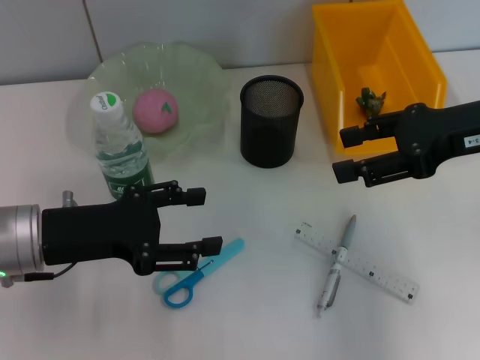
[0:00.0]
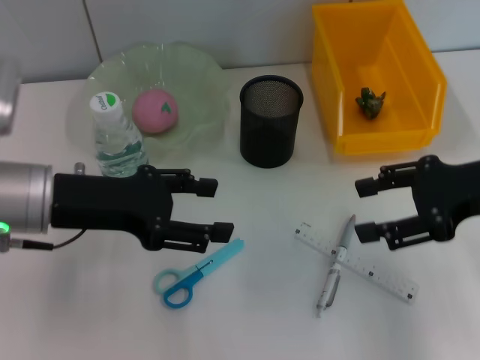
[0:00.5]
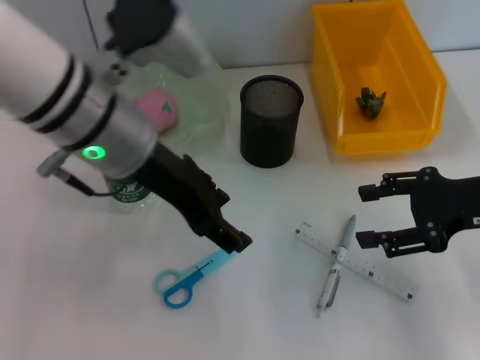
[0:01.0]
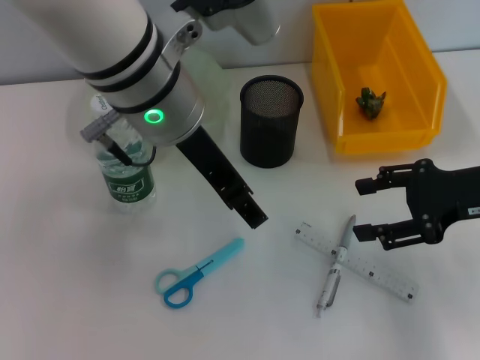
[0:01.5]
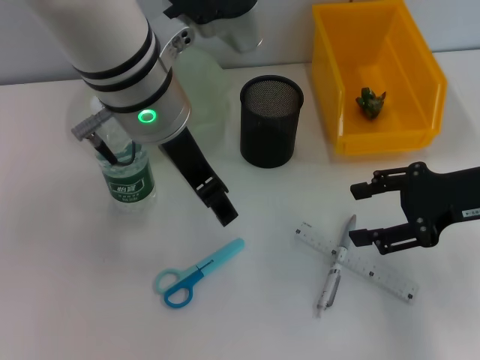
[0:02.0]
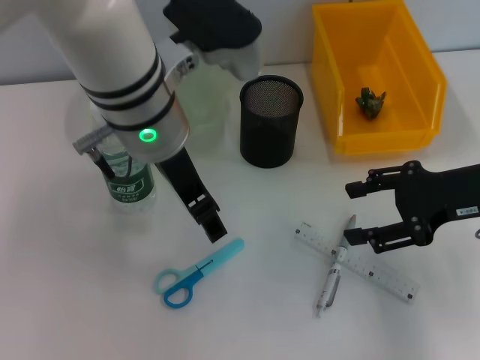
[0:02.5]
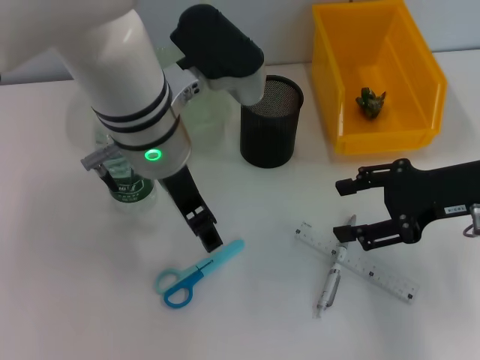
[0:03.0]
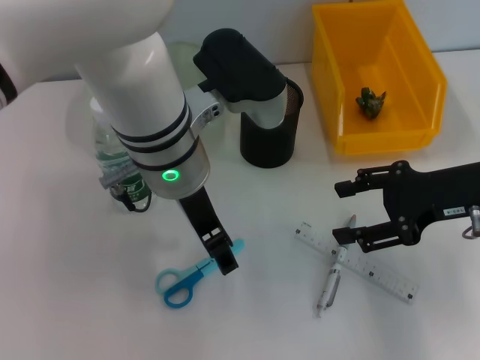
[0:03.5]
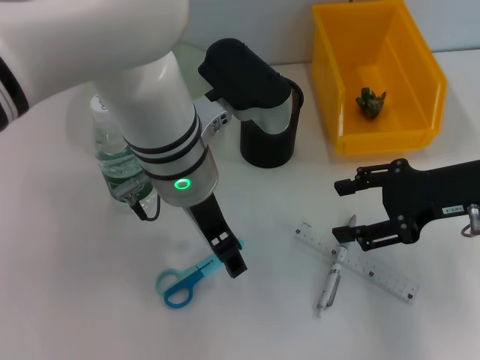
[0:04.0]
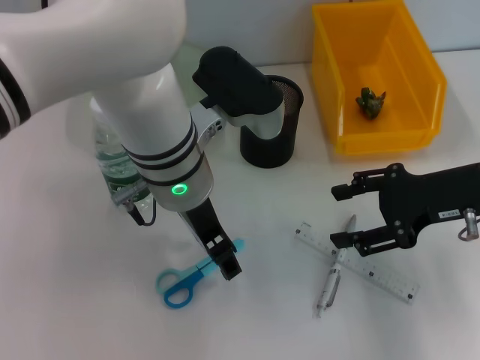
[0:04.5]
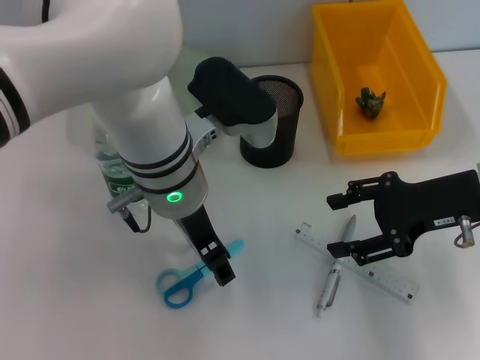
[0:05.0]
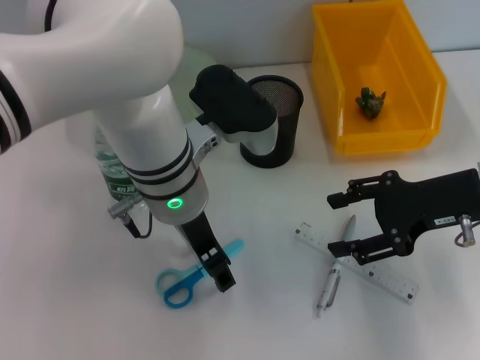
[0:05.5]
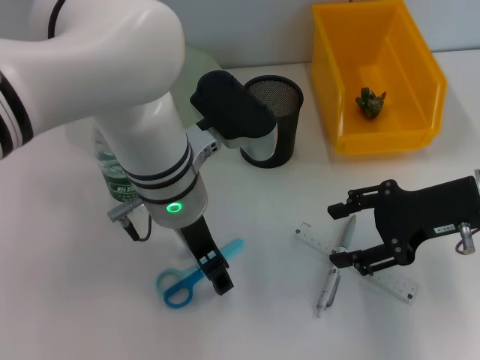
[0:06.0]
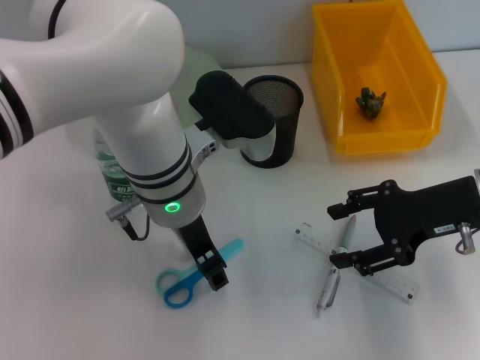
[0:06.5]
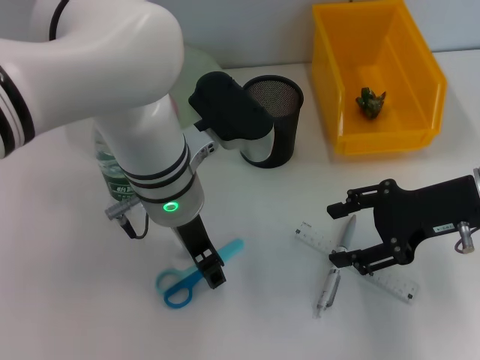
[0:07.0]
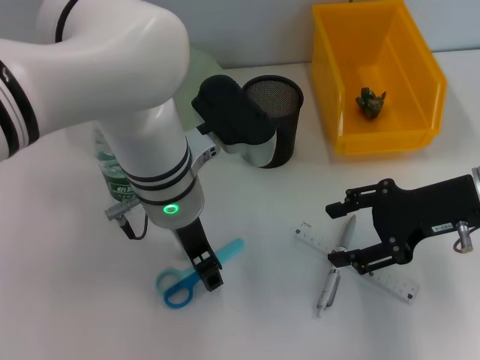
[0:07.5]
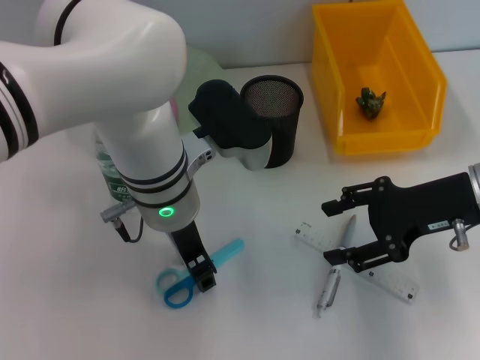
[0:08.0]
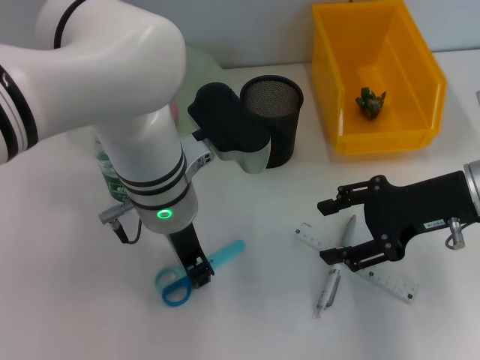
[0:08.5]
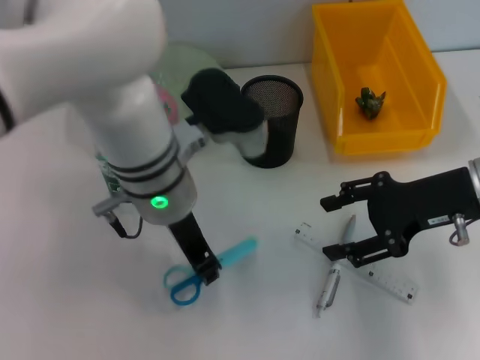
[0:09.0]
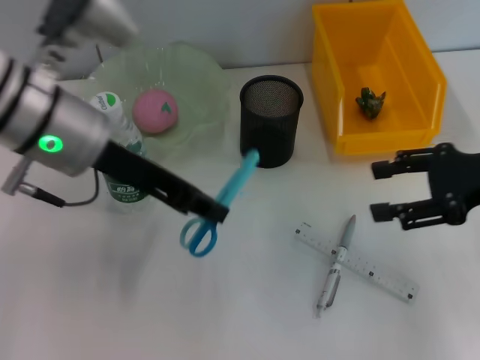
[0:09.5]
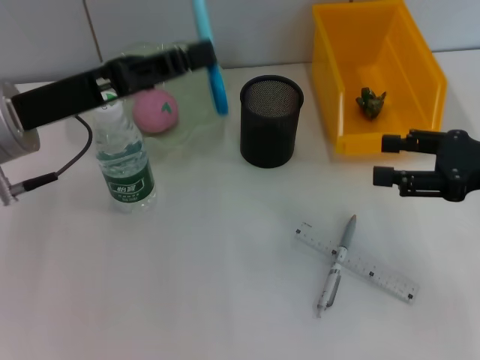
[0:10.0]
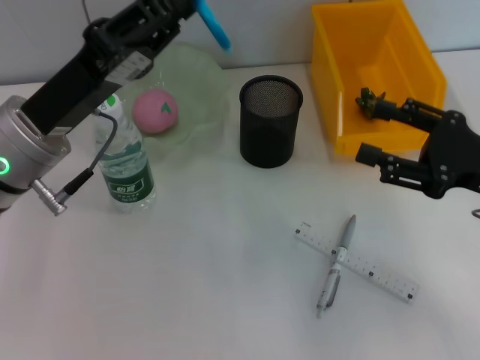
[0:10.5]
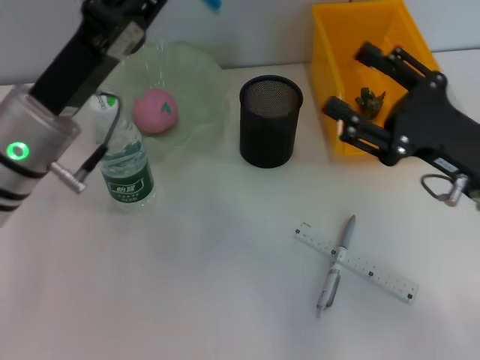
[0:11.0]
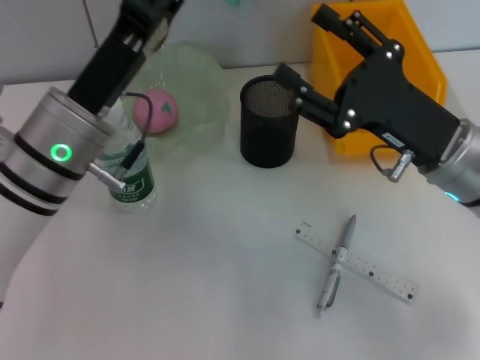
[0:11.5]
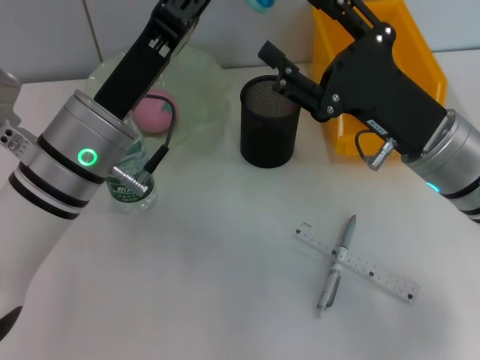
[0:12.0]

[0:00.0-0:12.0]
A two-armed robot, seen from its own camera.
Step, 0:00.0 to 0:08.5: Grab the blue scissors with the left hand.
0:00.0 to 0:02.0: The right gripper shifts approximately 5 cm downward, while the left gripper heads to the right, upward and forward, covering roughly 20 cm.
0:02.0 to 0:04.0: The left gripper travels downward by roughly 5 cm.
0:06.0 to 0:08.0: The left gripper closes.
0:08.0 to 0:10.0: The left gripper moves to the left, about 15 cm, and closes its fingers; the right gripper shifts approximately 5 cm to the right.
0:10.0 to 0:12.0: The left gripper travels to the right by roughly 10 cm. Meanwhile the right gripper heads to the left, covering approximately 15 cm.

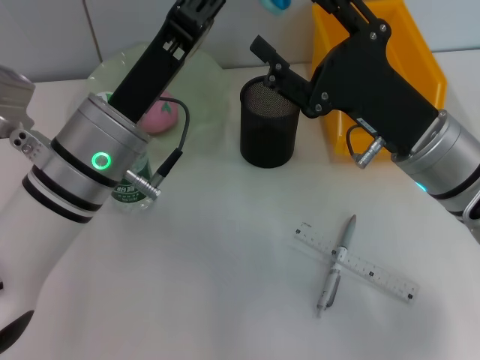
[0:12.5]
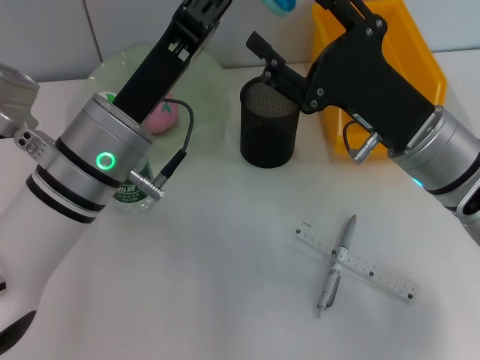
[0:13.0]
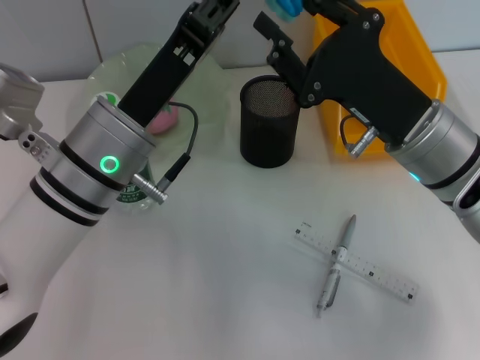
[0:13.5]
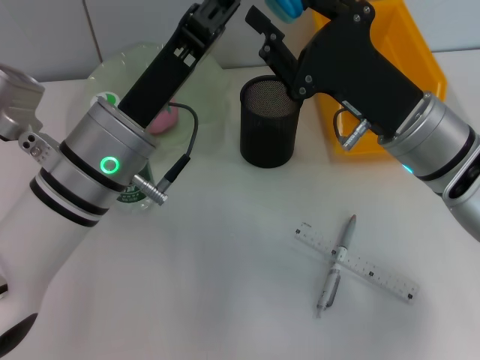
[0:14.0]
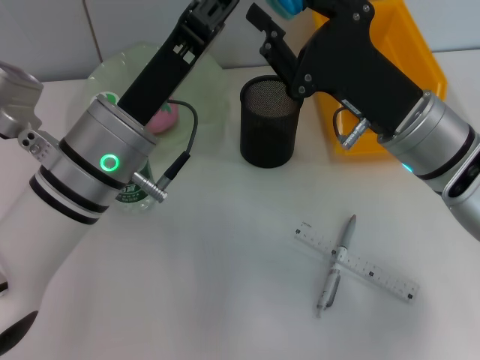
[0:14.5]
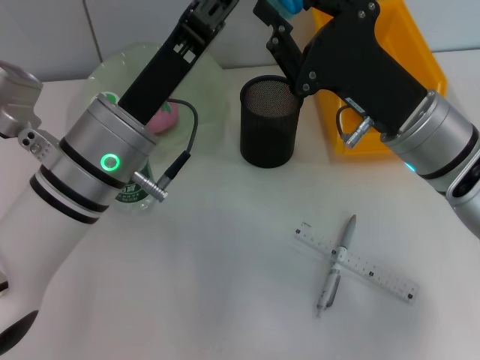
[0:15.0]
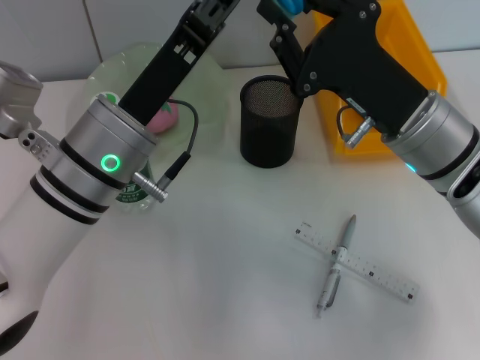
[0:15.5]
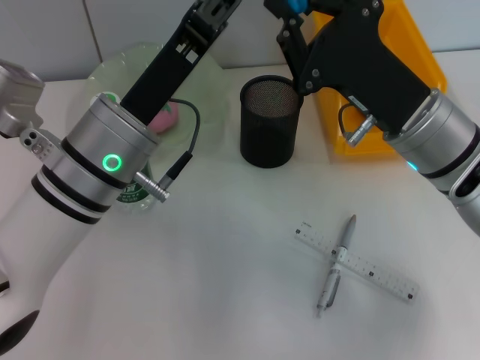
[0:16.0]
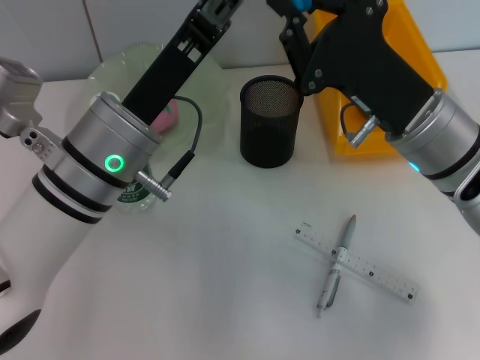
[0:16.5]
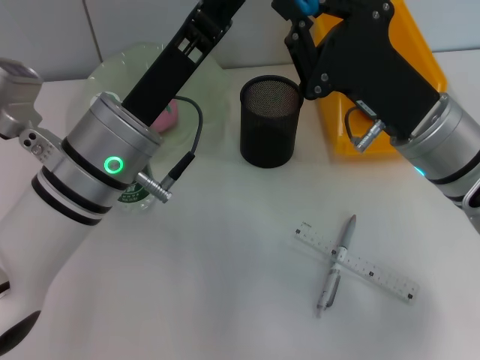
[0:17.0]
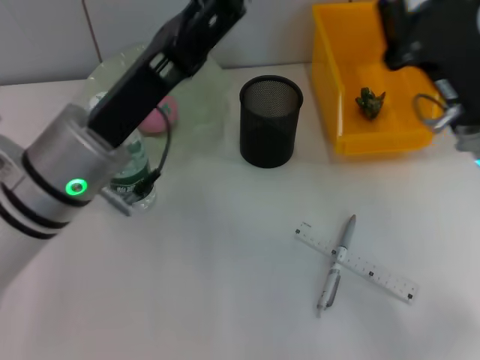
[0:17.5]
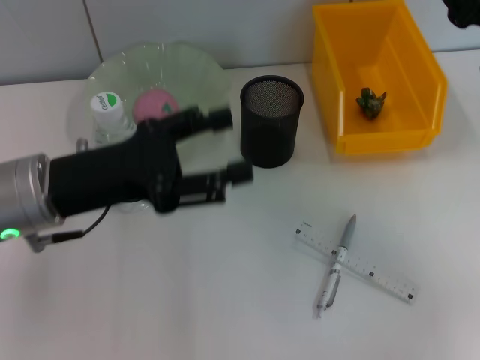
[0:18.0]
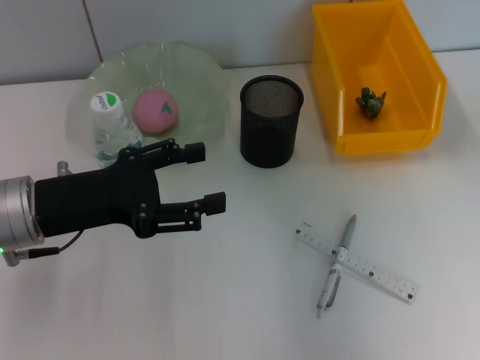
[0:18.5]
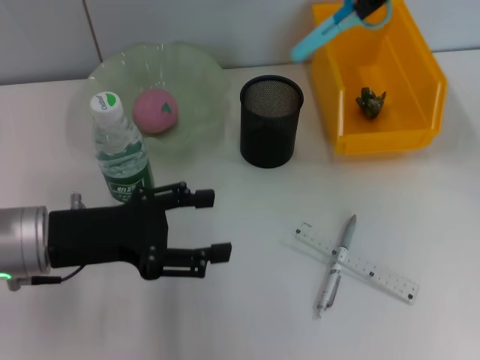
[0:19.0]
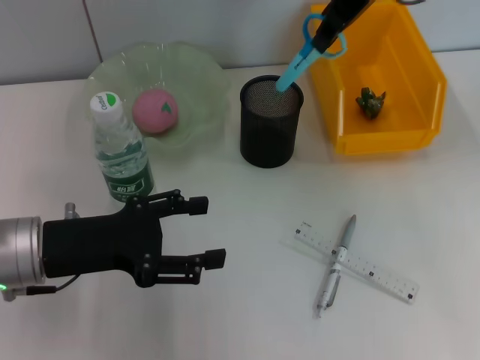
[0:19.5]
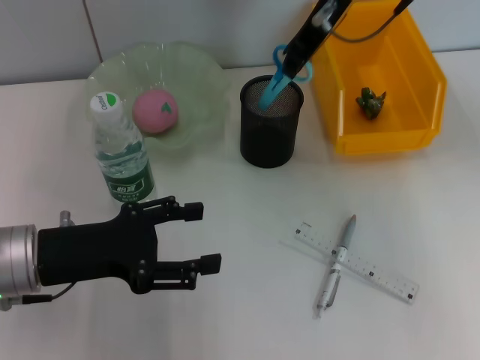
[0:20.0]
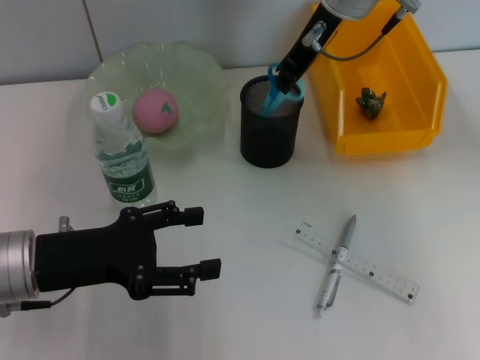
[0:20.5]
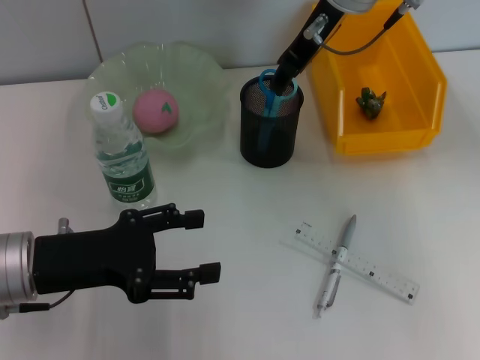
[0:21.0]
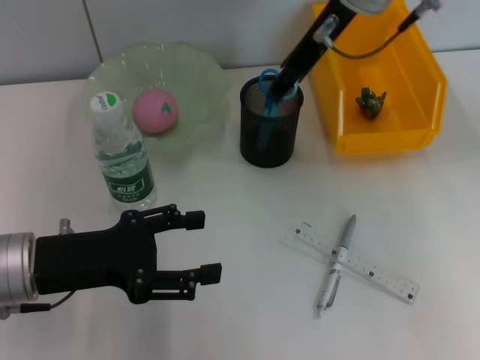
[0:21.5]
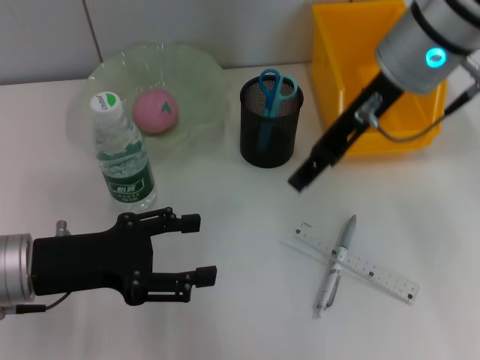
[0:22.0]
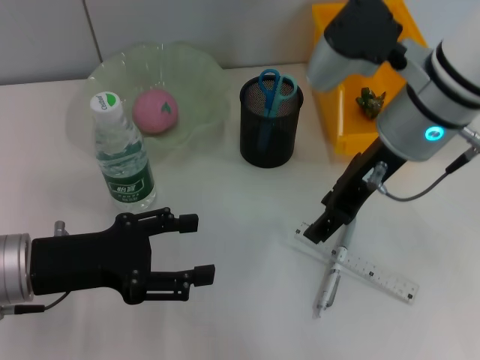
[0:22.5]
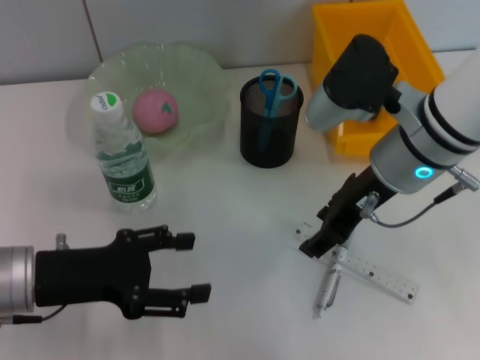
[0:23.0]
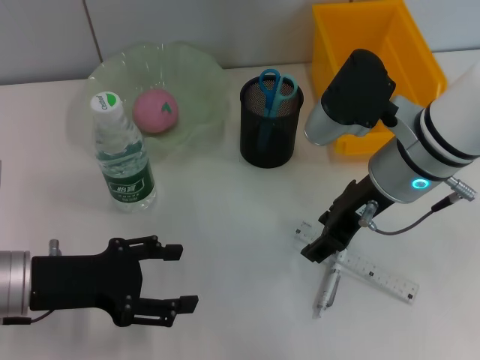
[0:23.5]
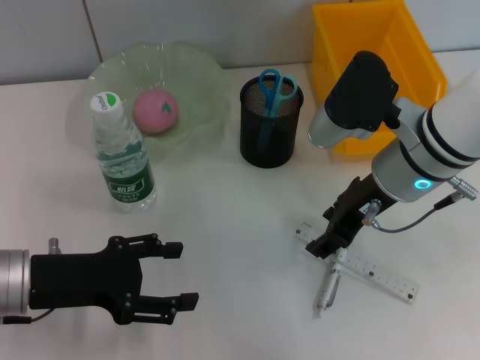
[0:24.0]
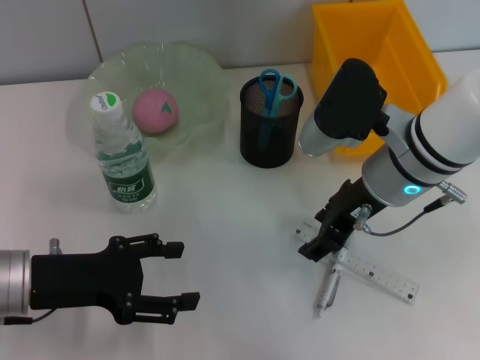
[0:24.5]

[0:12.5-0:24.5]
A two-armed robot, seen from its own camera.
Step, 0:12.5 to 0:17.0: Pass the blue scissors from the left hand to the right hand.
Step, 0:17.5 to 0:21.0: Place the blue scissors into the pen holder with the right hand.
0:12.5 to 0:14.5: The right gripper closes up.
0:14.5 to 0:16.5: The two grippers keep their place.
0:16.5 to 0:18.5: The left gripper shifts approximately 10 cm to the left, and opens its fingers, while the right gripper heads upward and to the right, covering some 20 cm.
0:18.5 to 0:20.5: The right gripper shifts roughly 20 cm to the left.
0:20.5 to 0:22.5: The right gripper travels backward and downward by approximately 10 cm, and opens.
0:22.5 to 0:24.5: The right gripper heads downward, covering some 5 cm.

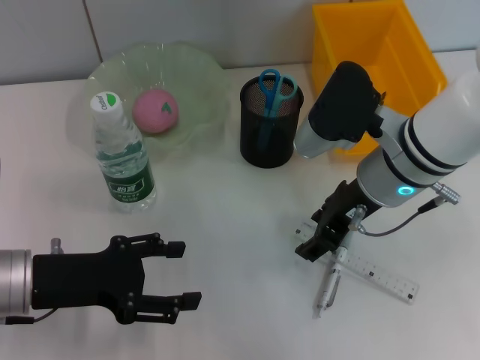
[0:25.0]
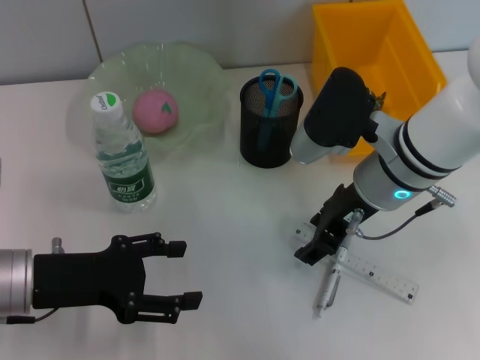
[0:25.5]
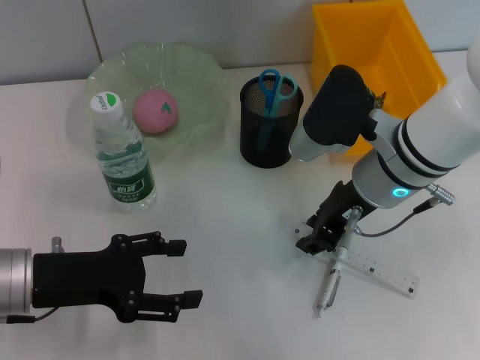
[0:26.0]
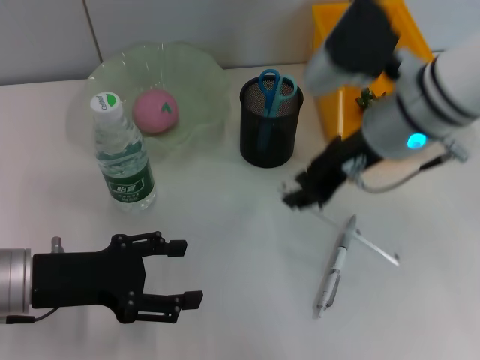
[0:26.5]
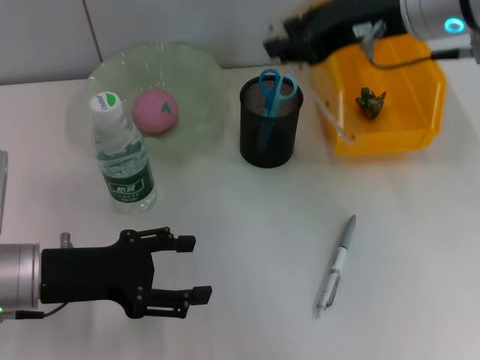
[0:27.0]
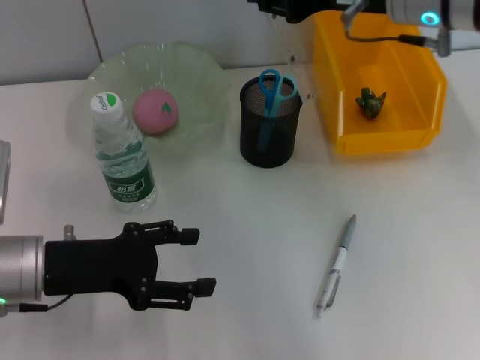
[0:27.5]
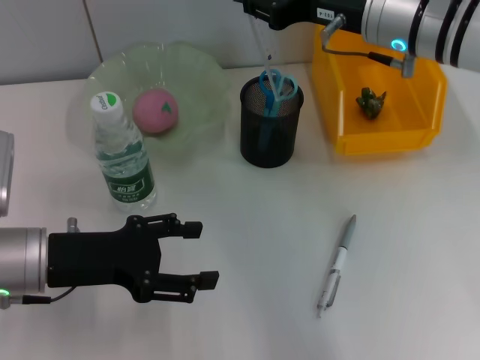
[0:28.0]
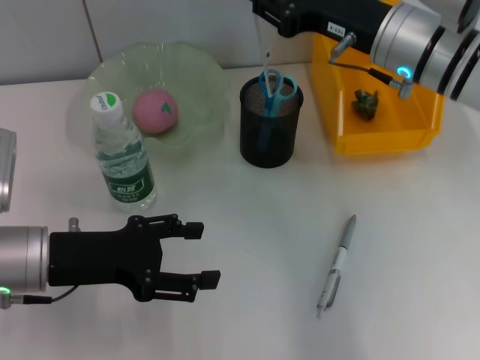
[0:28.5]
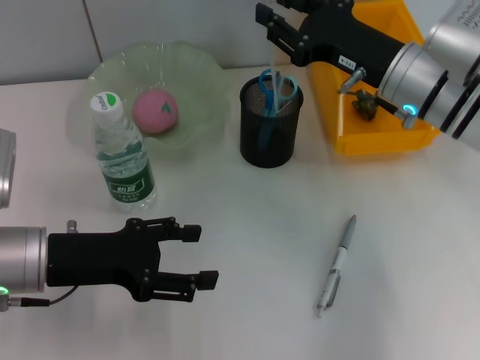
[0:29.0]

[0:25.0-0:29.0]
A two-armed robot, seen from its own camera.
0:25.0 to 0:27.0: The right gripper goes some 15 cm upward, and closes.
0:27.0 to 0:29.0: The right gripper goes some 15 cm downward.
